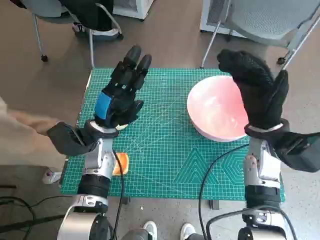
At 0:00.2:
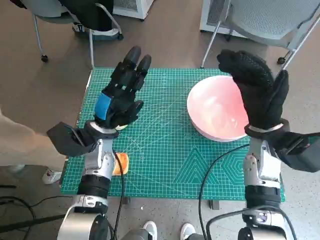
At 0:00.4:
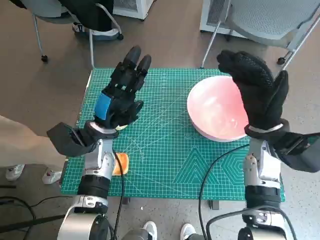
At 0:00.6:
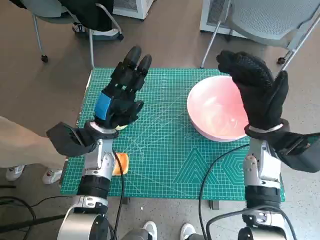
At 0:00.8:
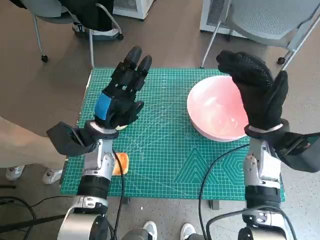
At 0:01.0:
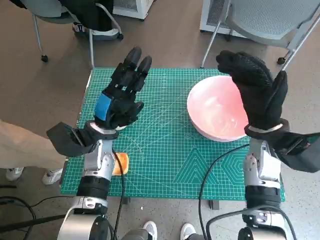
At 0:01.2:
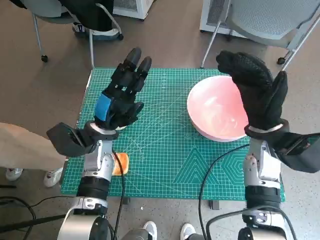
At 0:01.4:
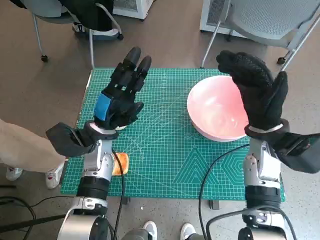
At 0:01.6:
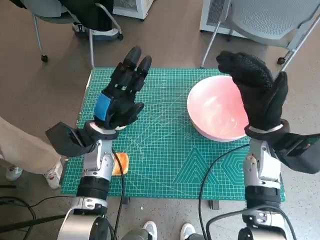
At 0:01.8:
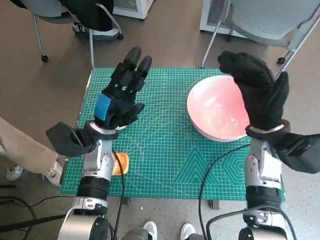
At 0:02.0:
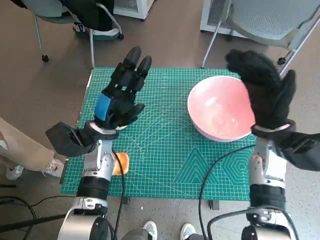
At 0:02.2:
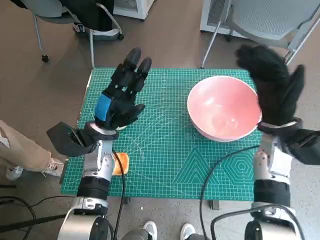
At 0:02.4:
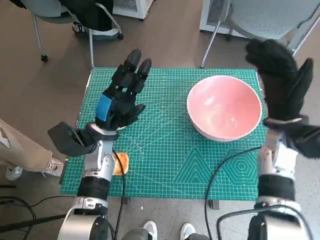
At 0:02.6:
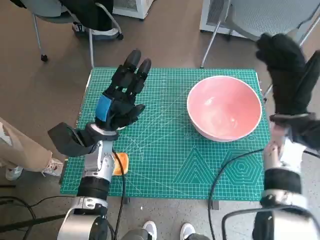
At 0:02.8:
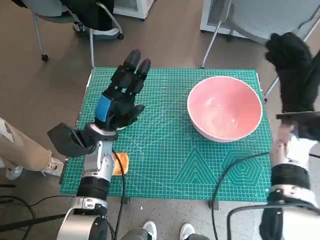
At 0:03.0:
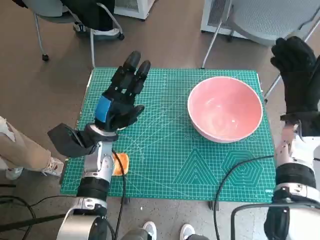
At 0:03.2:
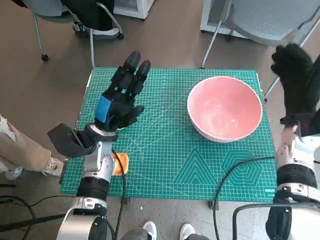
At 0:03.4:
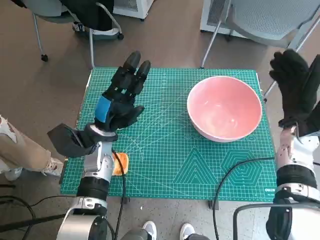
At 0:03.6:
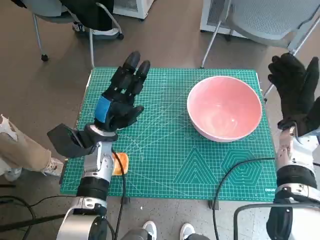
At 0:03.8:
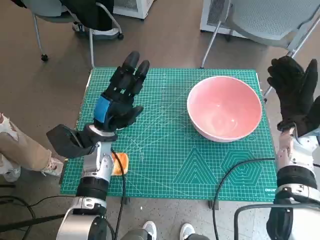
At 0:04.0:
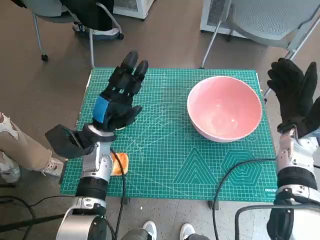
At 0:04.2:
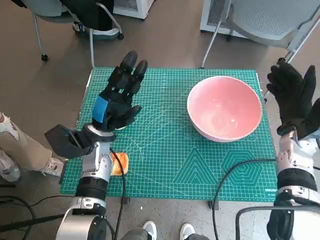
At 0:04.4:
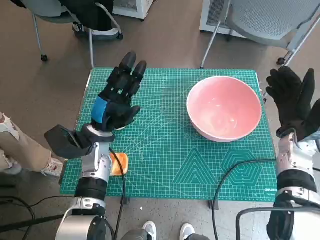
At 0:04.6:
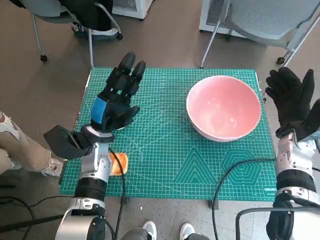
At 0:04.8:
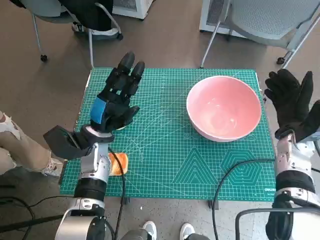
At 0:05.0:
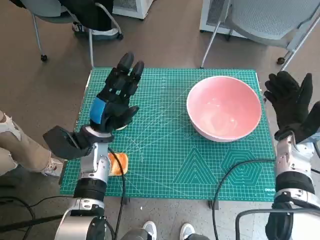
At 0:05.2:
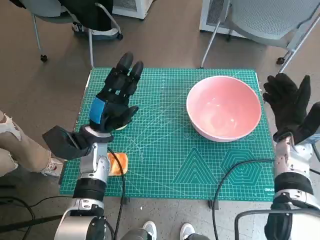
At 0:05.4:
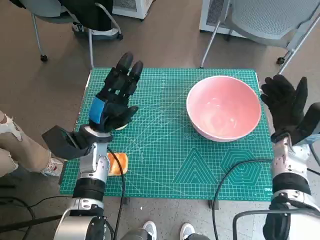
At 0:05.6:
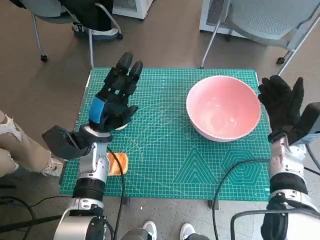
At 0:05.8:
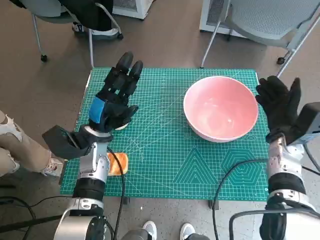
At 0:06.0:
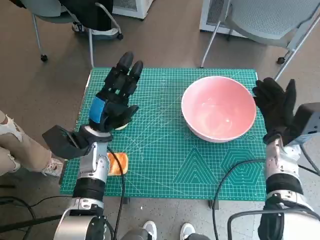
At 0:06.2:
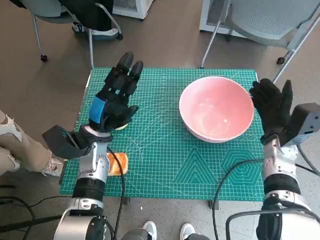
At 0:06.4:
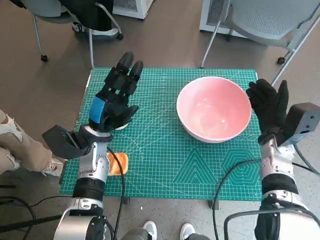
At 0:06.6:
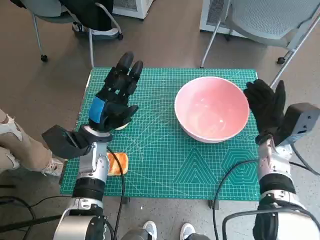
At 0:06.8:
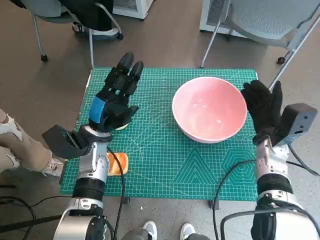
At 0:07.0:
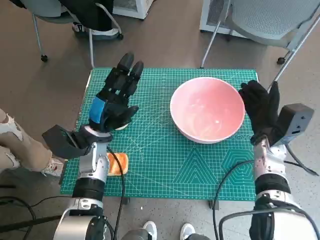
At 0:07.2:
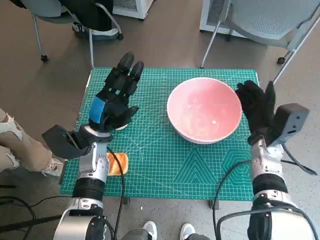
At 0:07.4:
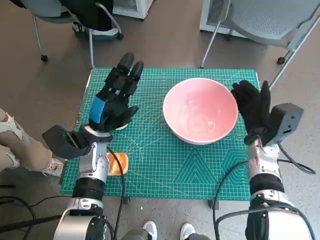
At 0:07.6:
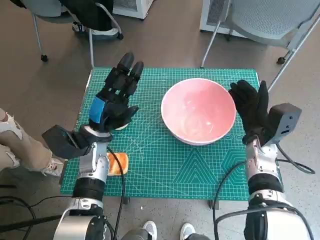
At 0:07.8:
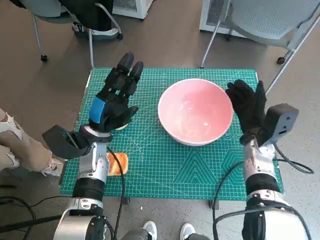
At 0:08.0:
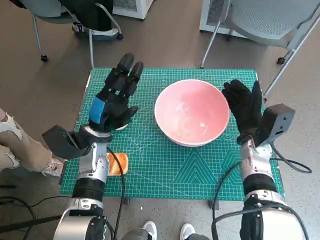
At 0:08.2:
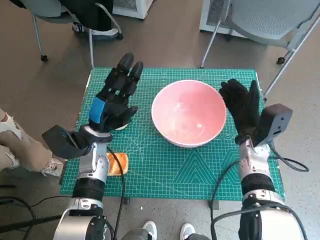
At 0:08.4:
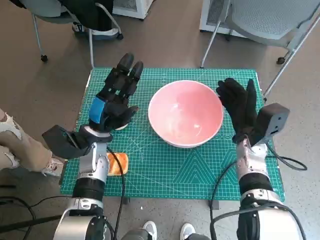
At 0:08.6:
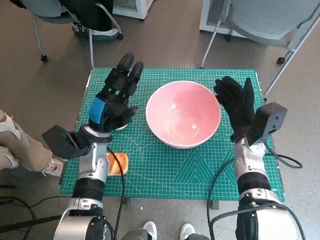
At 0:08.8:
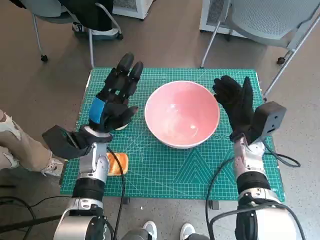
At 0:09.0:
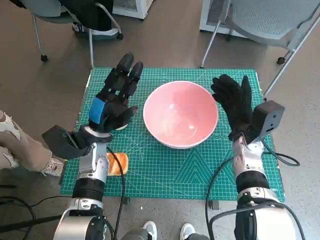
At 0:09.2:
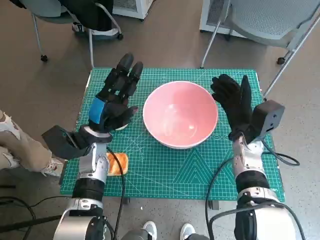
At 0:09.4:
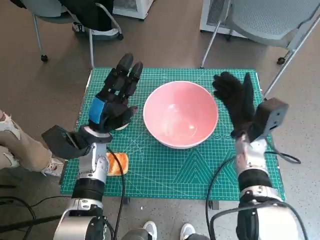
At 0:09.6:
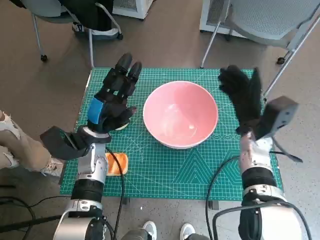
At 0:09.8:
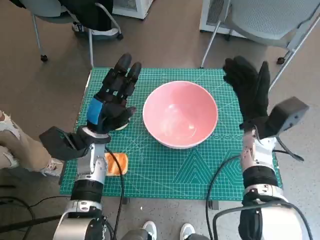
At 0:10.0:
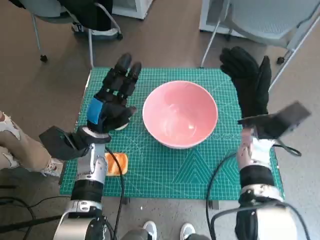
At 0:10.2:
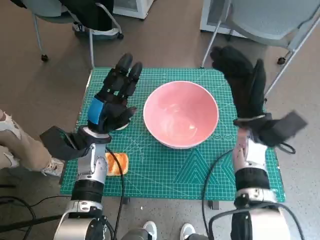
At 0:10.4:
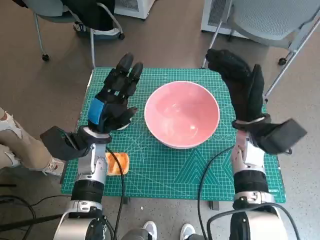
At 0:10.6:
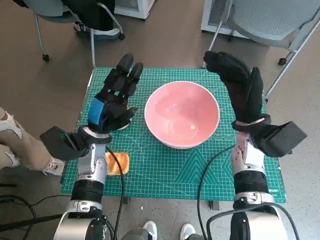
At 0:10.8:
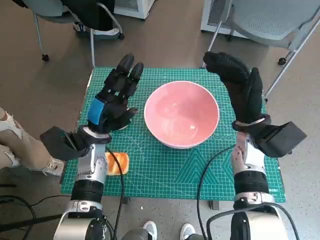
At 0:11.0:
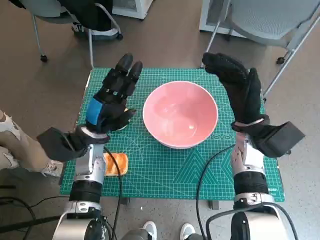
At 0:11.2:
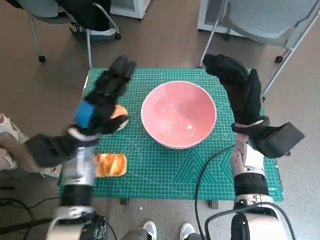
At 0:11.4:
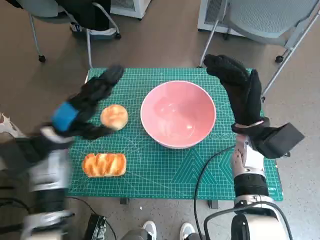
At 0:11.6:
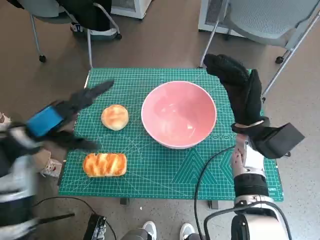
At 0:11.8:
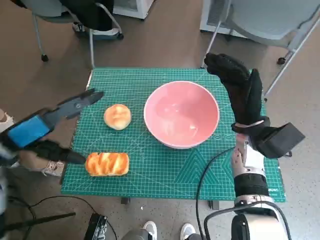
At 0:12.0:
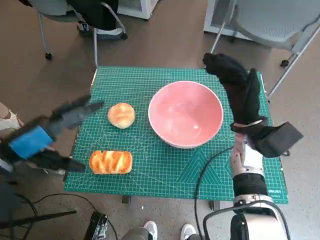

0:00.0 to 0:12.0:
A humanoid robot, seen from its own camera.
Step, 0:00.0 to 0:09.4: Move the pink bowl to the center of table with right hand.
0:01.6 to 0:03.0: The right hand moves to the right, roughly 5 cm.
0:04.4 to 0:06.0: The hands move only a little.
0:06.0 to 0:07.6: There are only small adjustments of the hands.
0:07.6 to 0:09.0: There are only small adjustments of the hands.
0:09.0 to 0:10.4: The right hand goes about 5 cm upward.
0:10.4 to 0:12.0: The left hand goes approximately 20 cm upward, backward and to the left.

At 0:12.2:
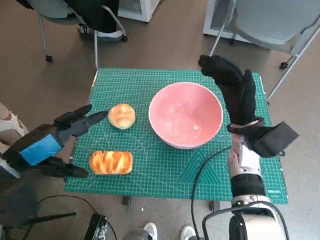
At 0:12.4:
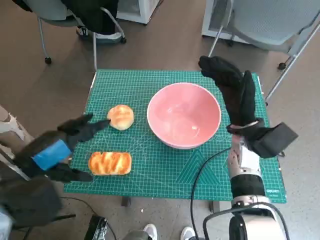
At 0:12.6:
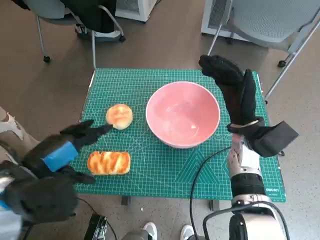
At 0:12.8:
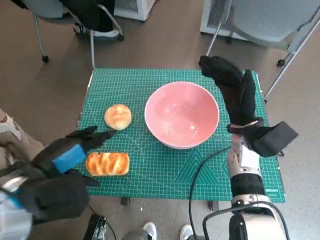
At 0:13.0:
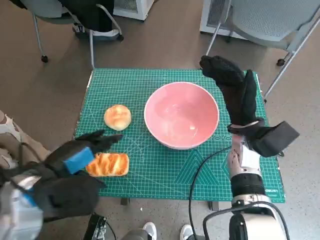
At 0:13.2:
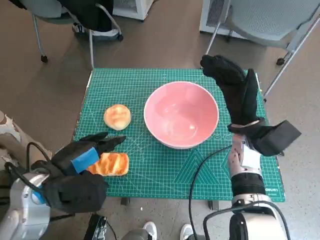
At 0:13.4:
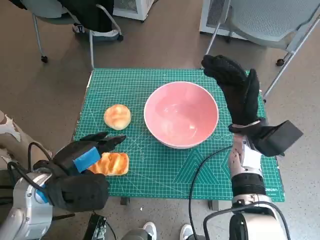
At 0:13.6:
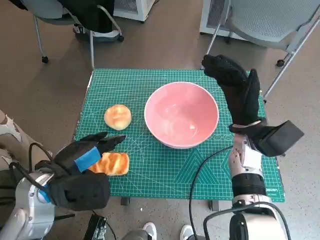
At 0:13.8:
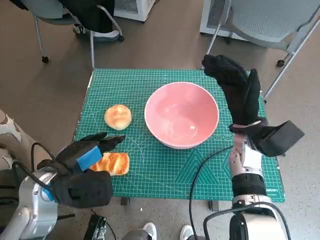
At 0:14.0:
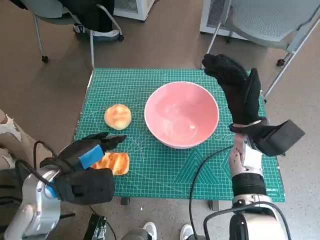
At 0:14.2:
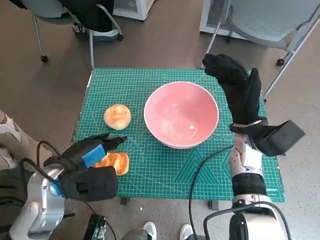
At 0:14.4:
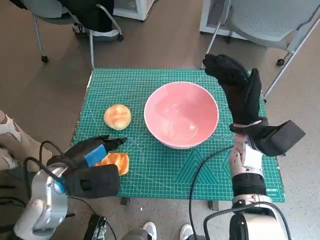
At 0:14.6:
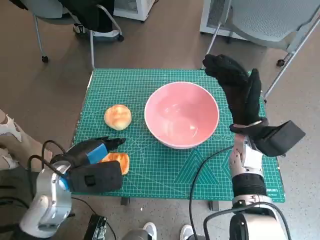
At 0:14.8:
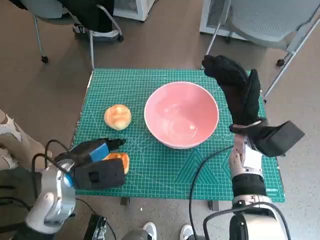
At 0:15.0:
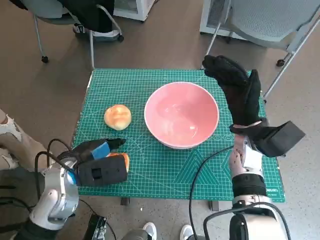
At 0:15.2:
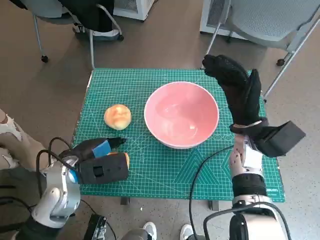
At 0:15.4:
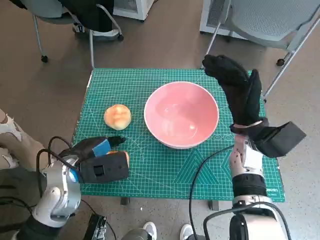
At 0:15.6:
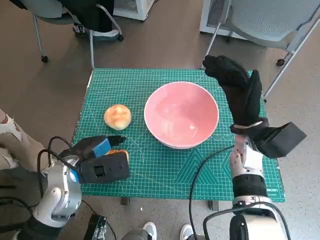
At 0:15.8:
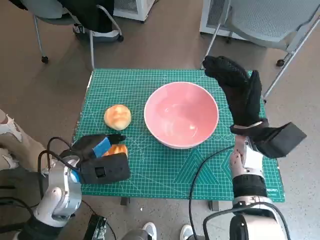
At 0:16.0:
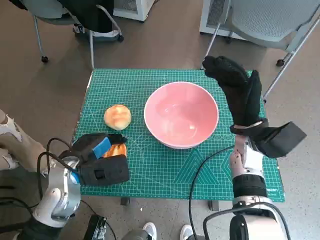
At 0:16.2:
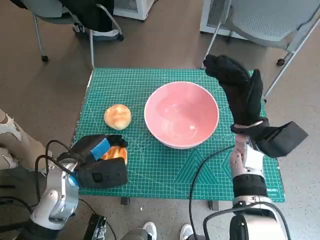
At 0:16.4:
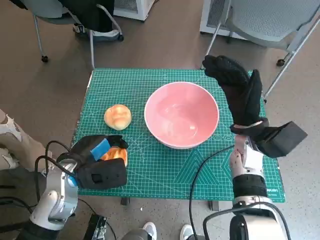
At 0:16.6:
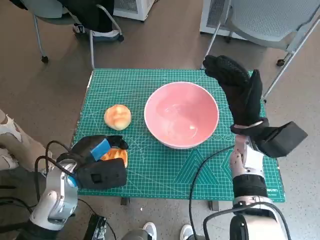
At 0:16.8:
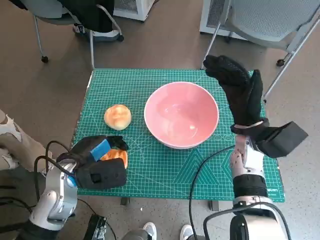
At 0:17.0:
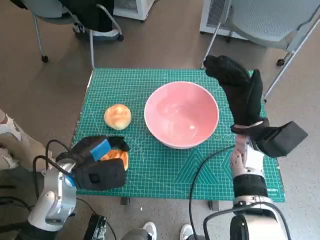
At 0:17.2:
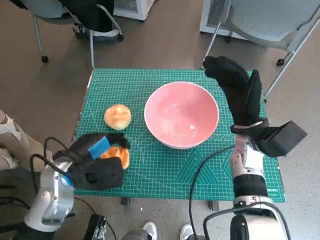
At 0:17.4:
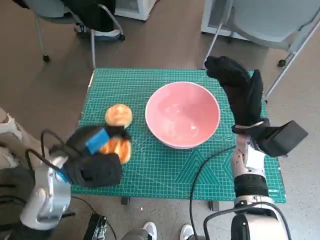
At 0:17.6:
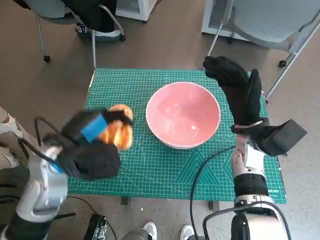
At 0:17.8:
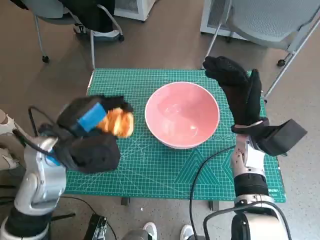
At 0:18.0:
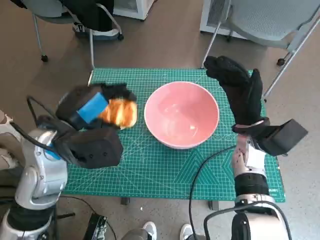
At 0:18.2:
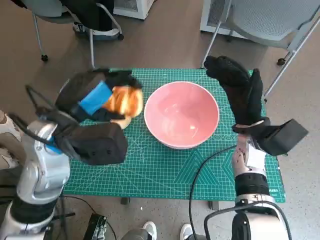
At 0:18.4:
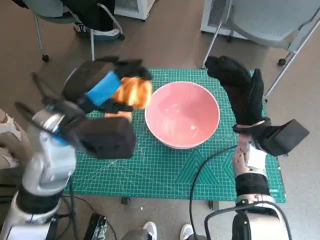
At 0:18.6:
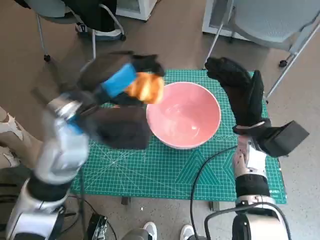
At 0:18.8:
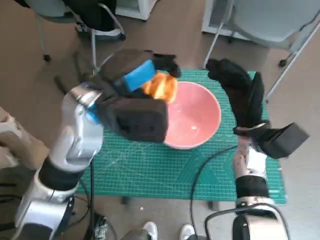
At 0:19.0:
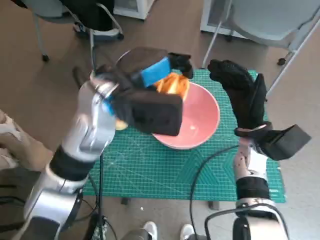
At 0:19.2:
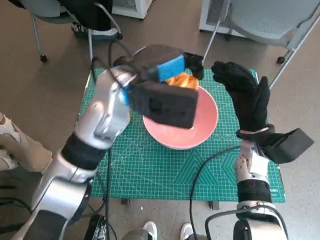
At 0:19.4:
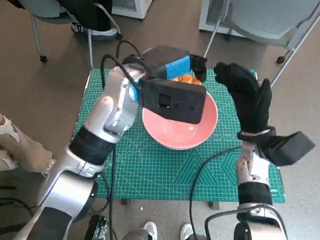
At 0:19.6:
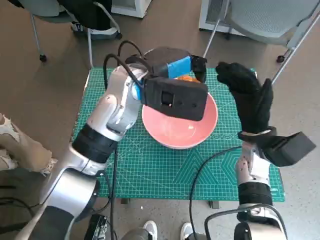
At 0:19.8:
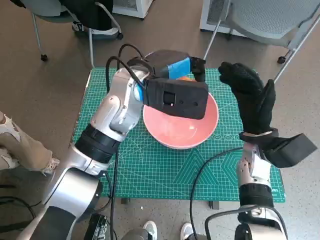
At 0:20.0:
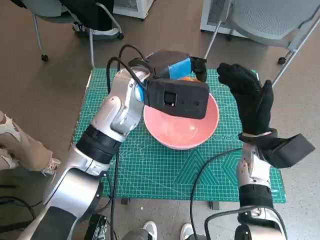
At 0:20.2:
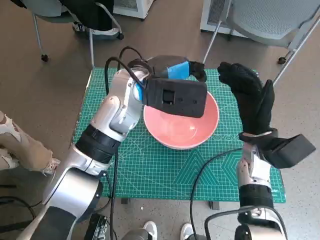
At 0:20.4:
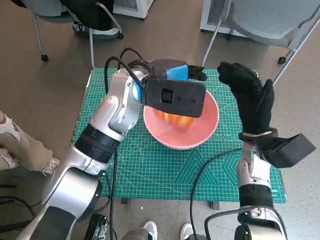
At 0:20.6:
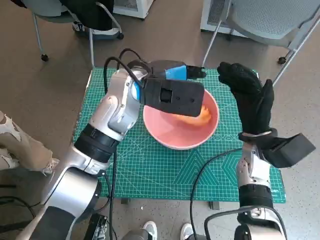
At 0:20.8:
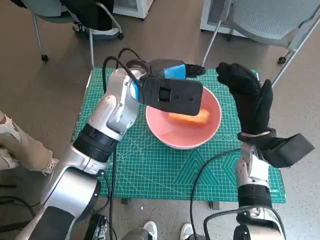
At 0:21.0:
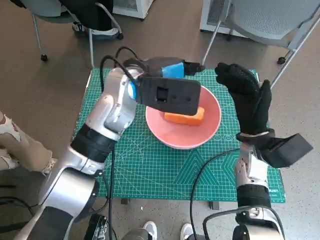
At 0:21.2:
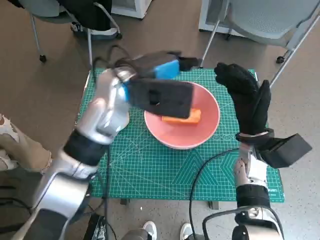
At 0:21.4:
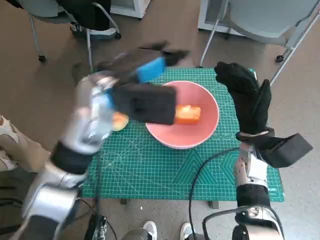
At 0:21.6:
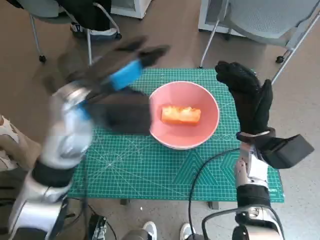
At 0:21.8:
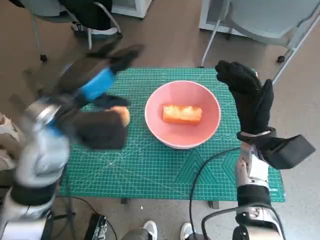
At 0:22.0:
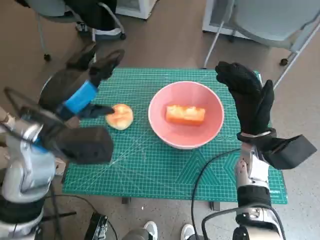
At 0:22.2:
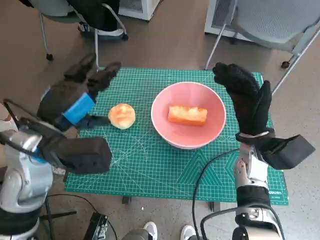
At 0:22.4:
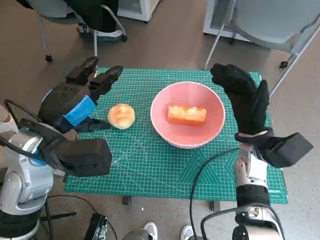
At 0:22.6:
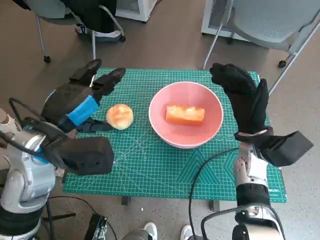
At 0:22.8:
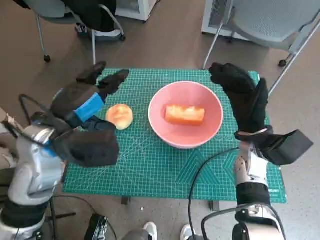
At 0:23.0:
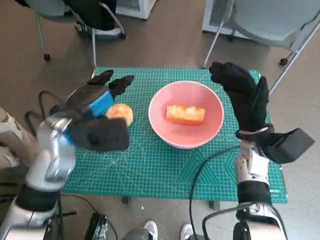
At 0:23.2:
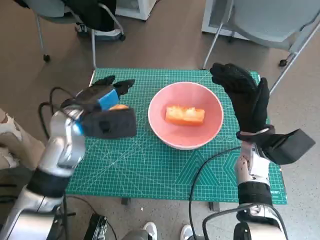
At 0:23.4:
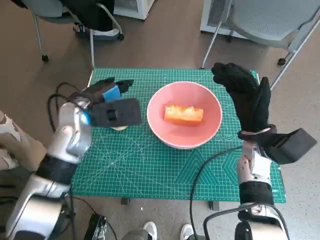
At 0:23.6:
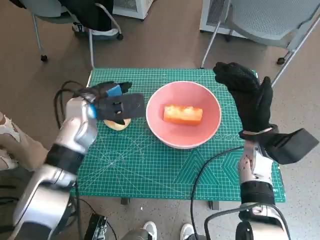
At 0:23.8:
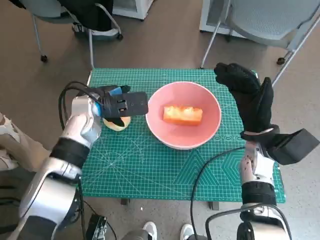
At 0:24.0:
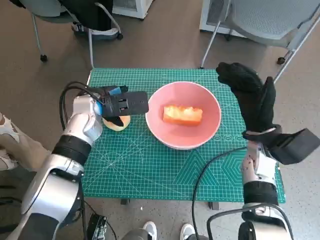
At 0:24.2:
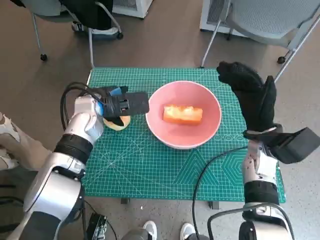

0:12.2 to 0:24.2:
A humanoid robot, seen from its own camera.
Step, 0:12.2 to 0:16.0: Grasp the long bread with left hand.
Step, 0:16.2 to 0:20.6: Place the long bread in pink bowl with left hand.
0:12.2 to 0:13.8: The left hand is displaced to the right and downward by approximately 10 cm.
0:13.8 to 0:15.2: The left hand ends up approximately 5 cm from where it was.
0:15.2 to 0:16.6: The hands make only small movements.
0:16.6 to 0:18.2: The left hand moves upward, about 15 cm.
0:18.2 to 0:19.8: The left hand shifts roughly 15 cm to the right and forward.
0:21.2 to 0:22.6: The left hand travels to the left and backward by roughly 15 cm.
0:22.6 to 0:24.2: The left hand goes about 15 cm forward and downward.
